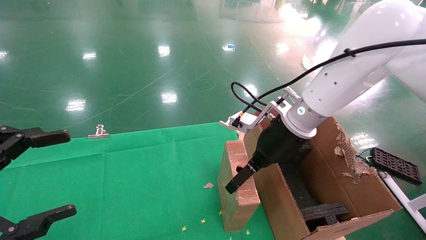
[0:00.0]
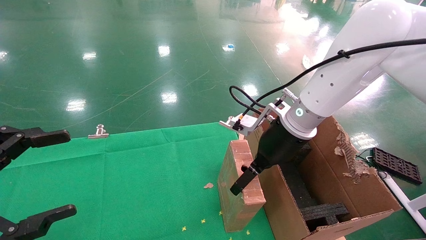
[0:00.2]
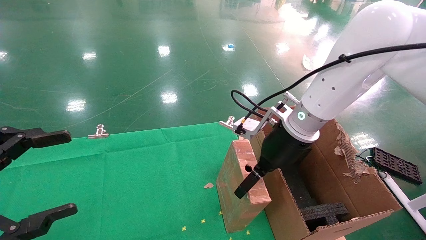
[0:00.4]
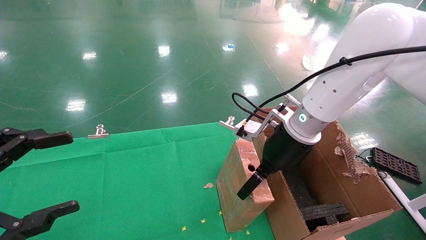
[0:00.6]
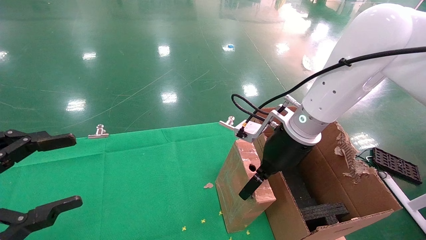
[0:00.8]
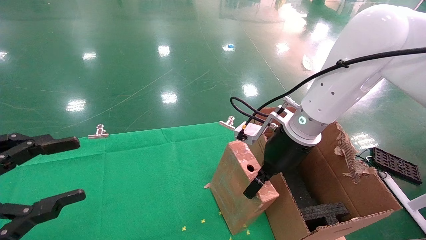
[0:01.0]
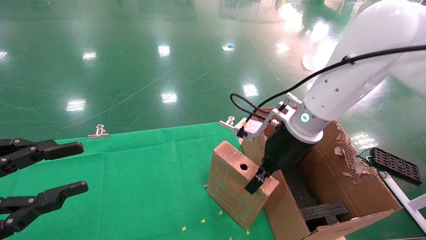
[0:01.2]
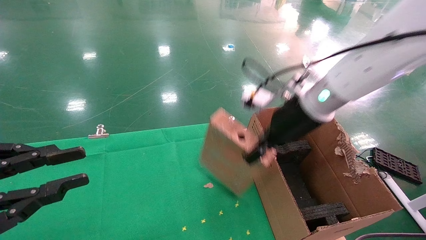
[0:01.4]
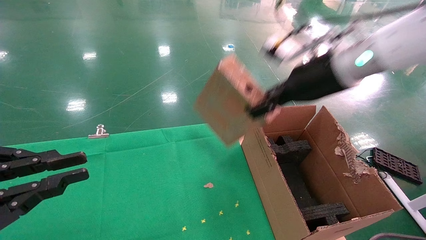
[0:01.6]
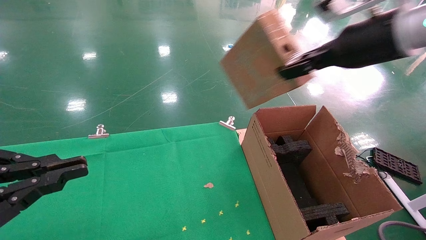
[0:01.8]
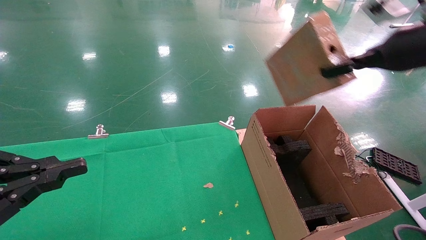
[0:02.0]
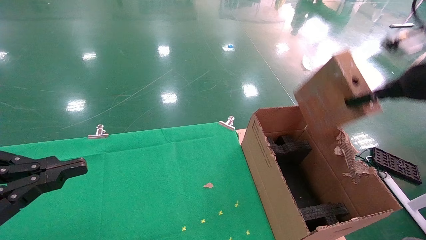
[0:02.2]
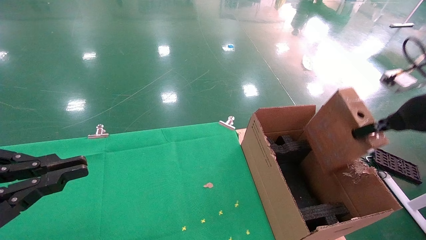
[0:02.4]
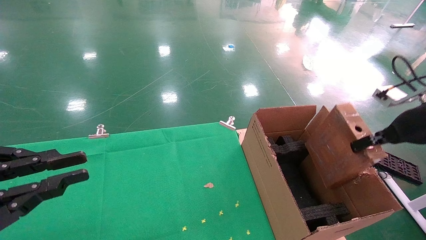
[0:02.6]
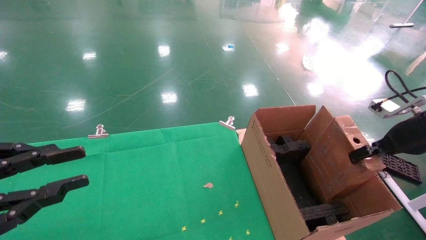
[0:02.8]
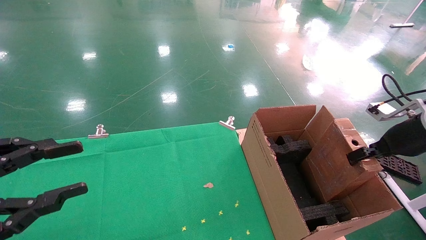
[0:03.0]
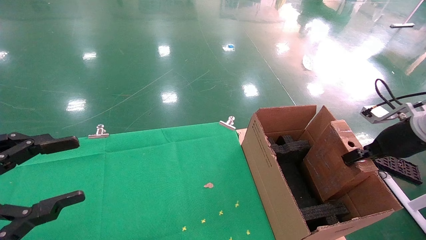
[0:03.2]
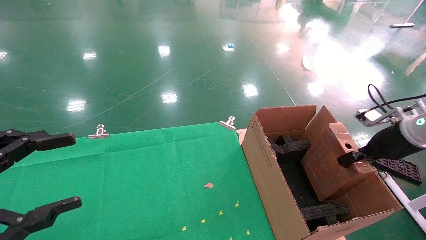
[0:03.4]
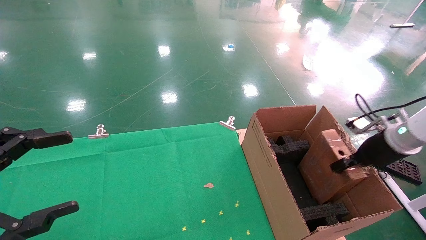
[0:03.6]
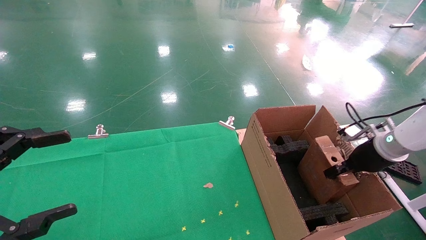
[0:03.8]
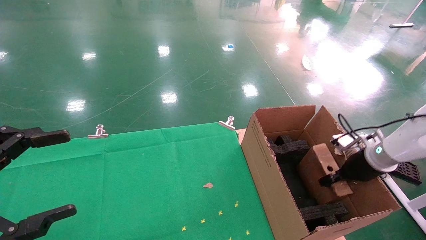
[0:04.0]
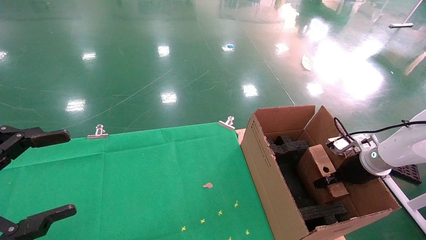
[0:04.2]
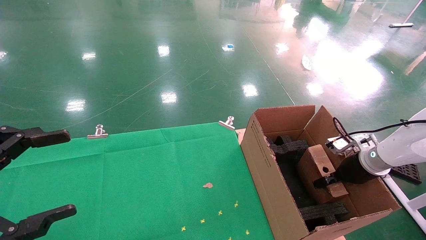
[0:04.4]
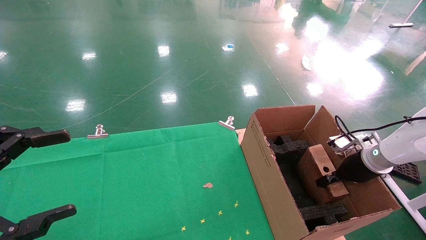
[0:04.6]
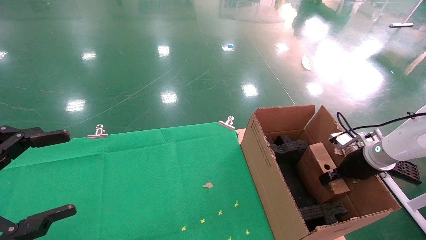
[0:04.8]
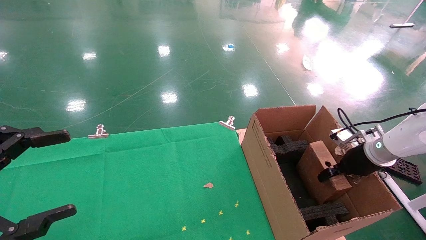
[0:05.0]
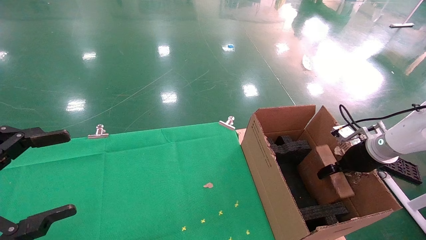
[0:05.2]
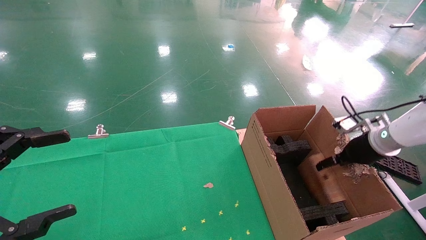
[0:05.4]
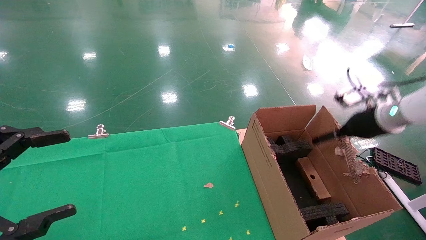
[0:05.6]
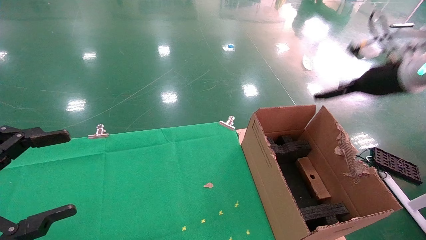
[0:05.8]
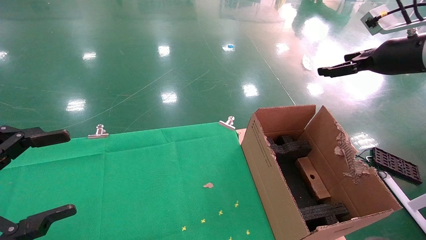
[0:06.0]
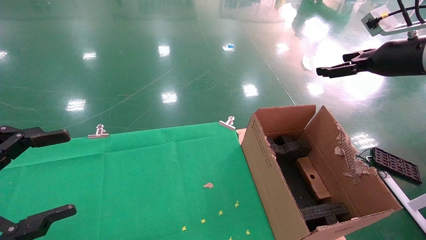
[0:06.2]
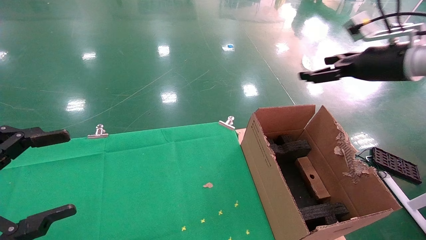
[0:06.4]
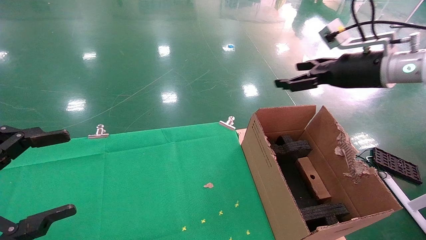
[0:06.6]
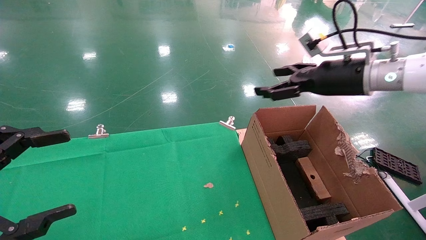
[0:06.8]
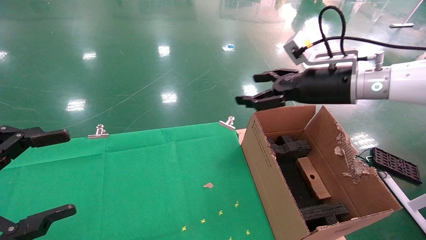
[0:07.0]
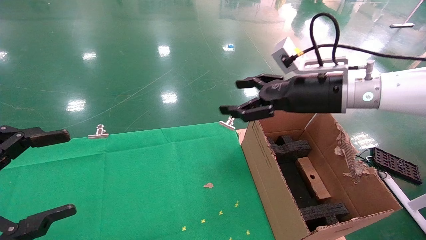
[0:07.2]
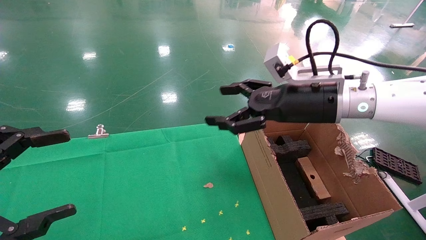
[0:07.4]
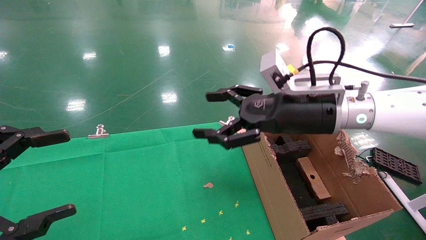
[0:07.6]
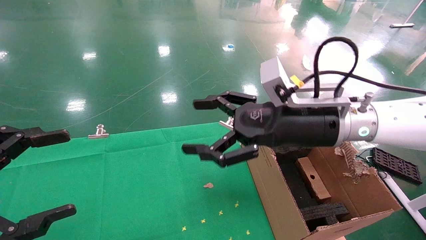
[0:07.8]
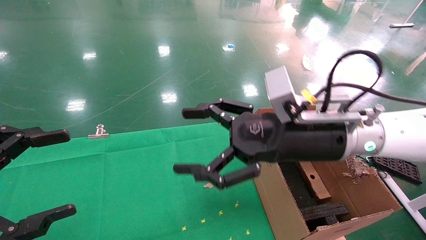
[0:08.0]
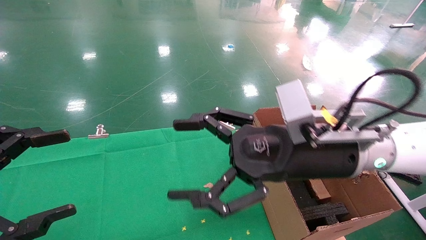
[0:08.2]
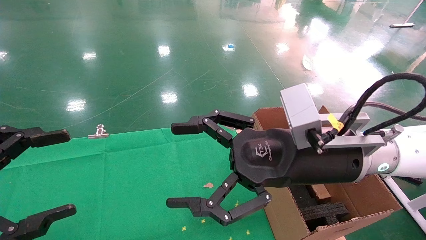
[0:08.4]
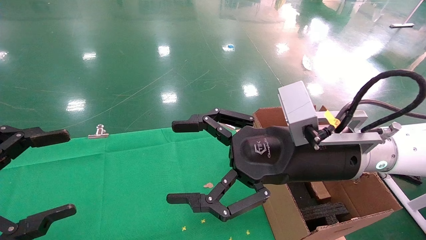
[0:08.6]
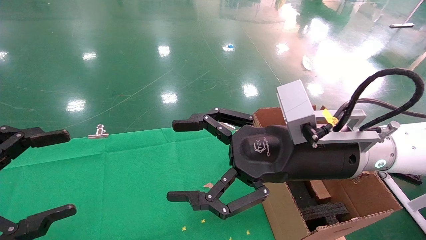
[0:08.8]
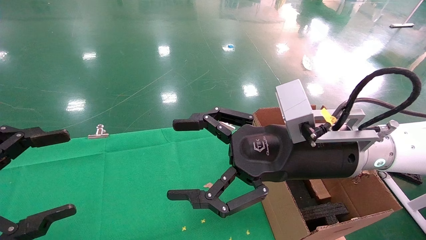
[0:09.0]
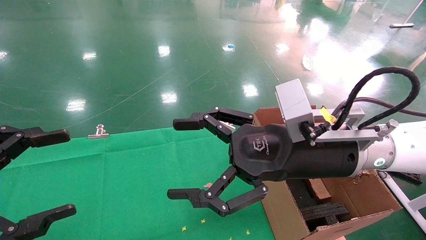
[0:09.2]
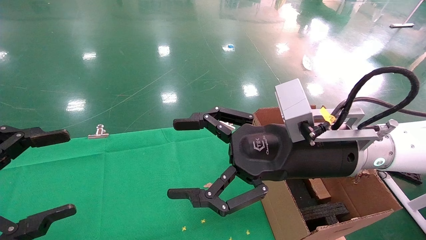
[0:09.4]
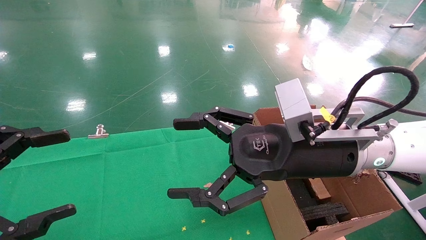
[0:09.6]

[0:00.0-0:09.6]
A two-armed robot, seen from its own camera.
Task of the whole recording: using a robotic arm to pick up a cardboard box and palace it the carton.
Step, 0:01.4 to 0:05.6: Place the mouse and the power cord paper box into the container.
0:00.0 to 0:01.6: The right gripper shifts about 15 cm upward and to the right, and closes up. The left gripper closes.
0:01.6 to 0:03.2: The right gripper heads to the right and downward, covering about 25 cm.
0:03.2 to 0:04.8: The right gripper heads downward and forward, covering about 10 cm. Meanwhile the left gripper opens.
0:04.8 to 0:06.4: The right gripper moves upward, roughly 20 cm, and opens.
0:06.4 to 0:08.0: The right gripper goes about 25 cm to the left and downward.
0:08.0 to 0:09.6: The grippers move only a little.

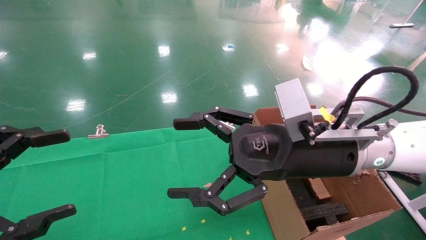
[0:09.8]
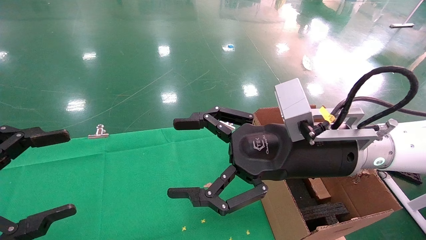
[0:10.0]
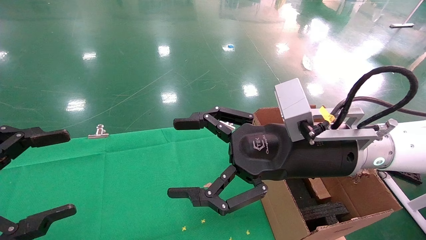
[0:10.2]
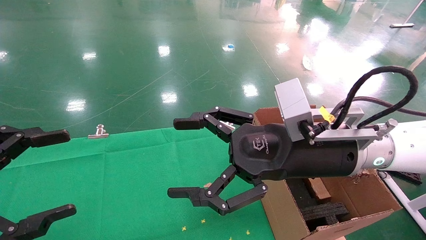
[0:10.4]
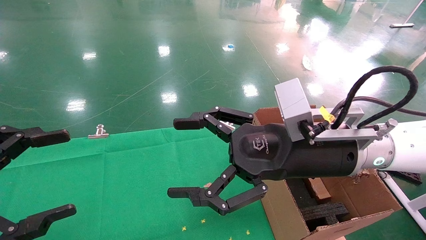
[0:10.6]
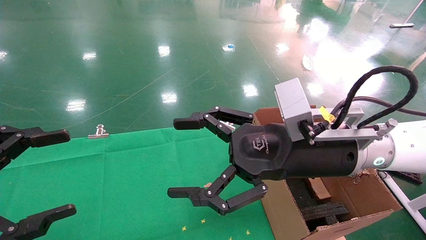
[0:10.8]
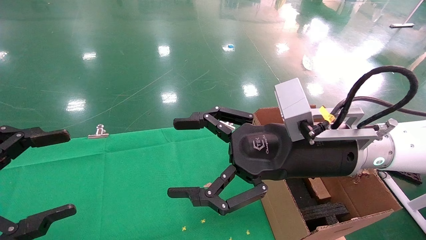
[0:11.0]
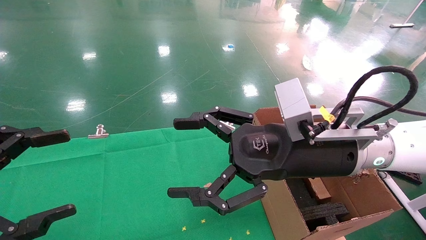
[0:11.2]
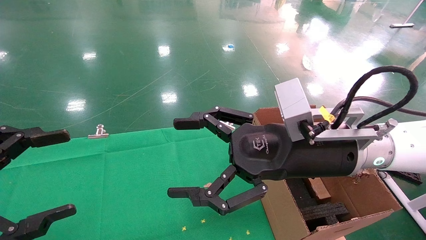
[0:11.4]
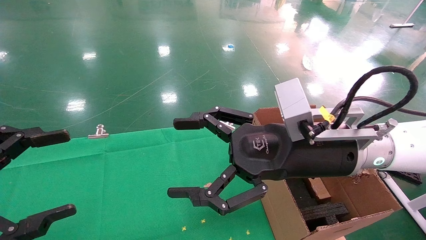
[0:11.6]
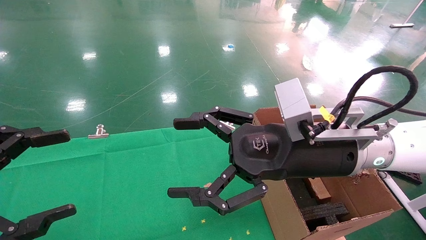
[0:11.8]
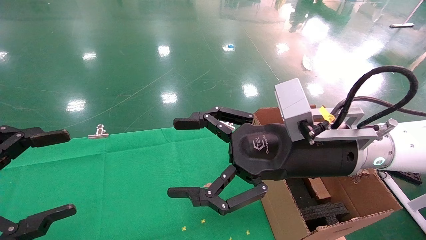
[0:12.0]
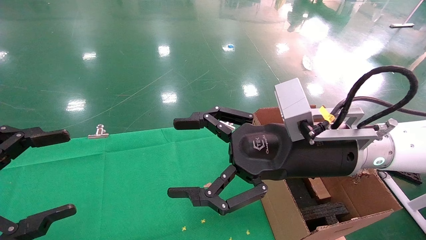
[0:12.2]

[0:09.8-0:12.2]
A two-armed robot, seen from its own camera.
Task of the whole recording: using a robotic arm to pick up a cardboard box and palace it the carton.
0:09.8 to 0:12.2: Neither gripper changes place.
